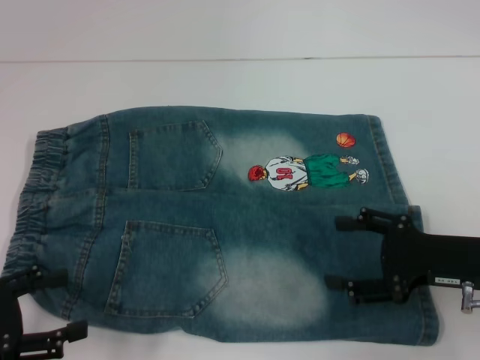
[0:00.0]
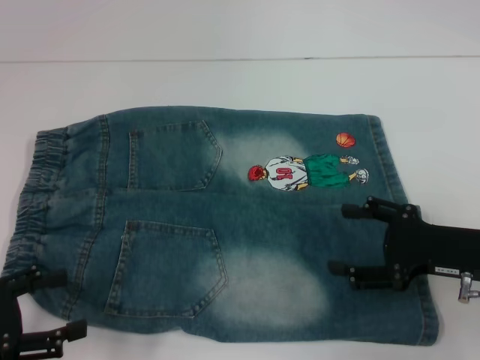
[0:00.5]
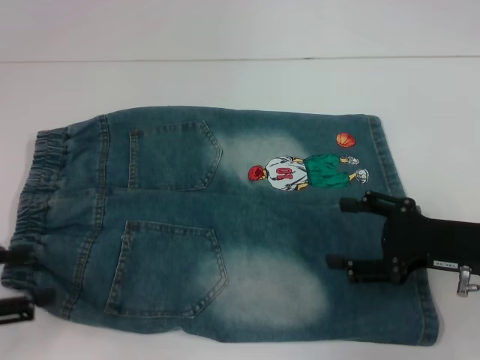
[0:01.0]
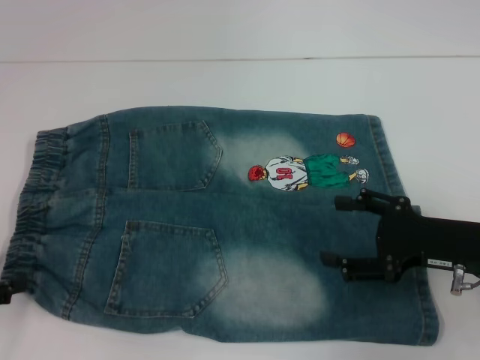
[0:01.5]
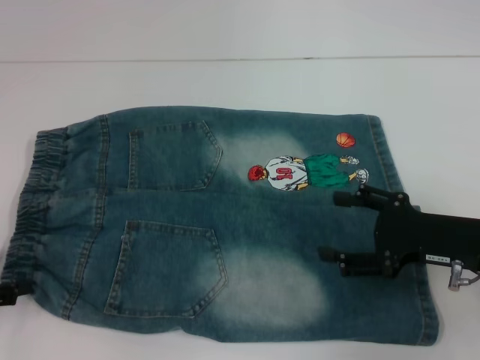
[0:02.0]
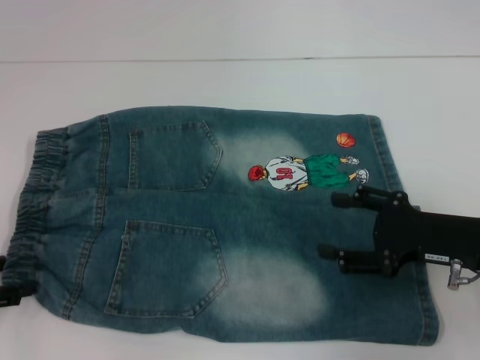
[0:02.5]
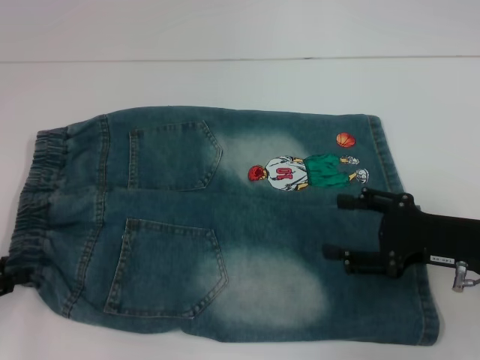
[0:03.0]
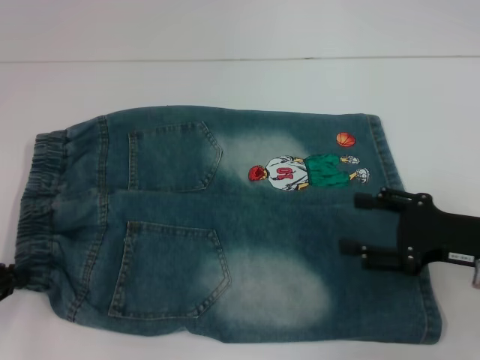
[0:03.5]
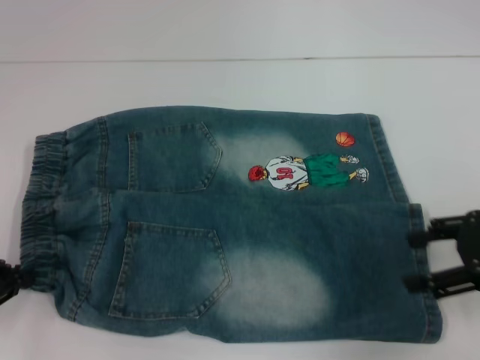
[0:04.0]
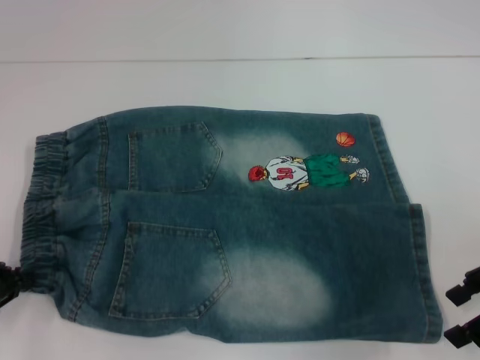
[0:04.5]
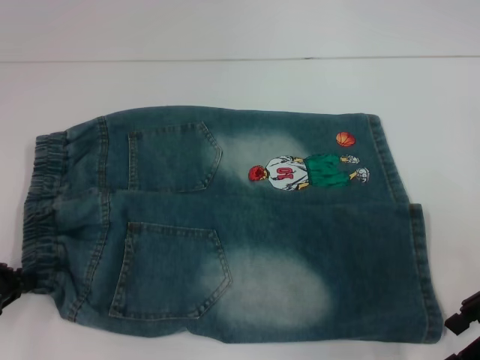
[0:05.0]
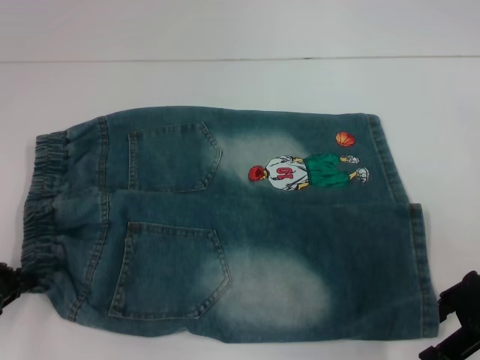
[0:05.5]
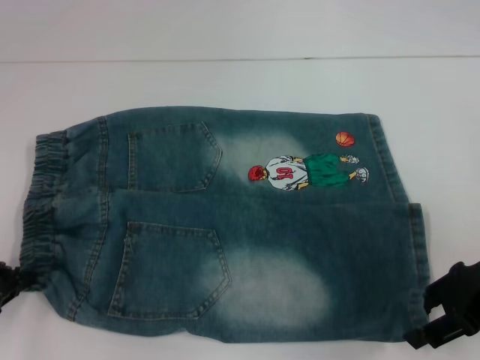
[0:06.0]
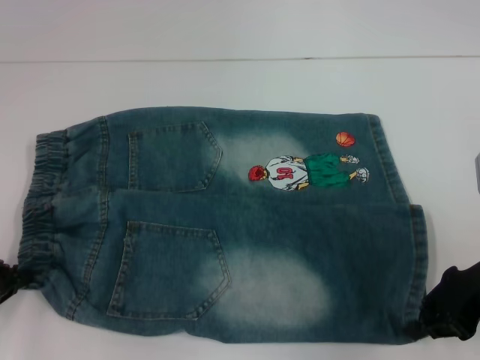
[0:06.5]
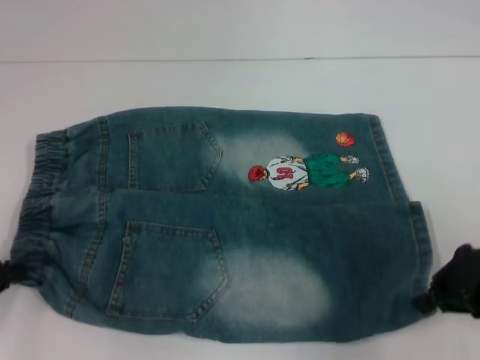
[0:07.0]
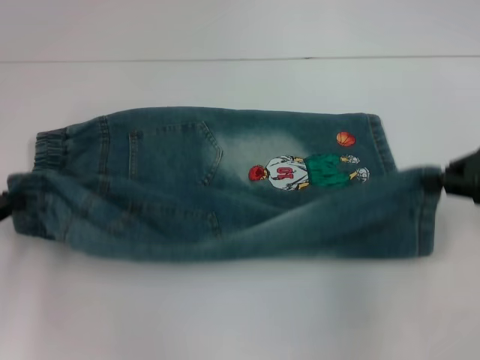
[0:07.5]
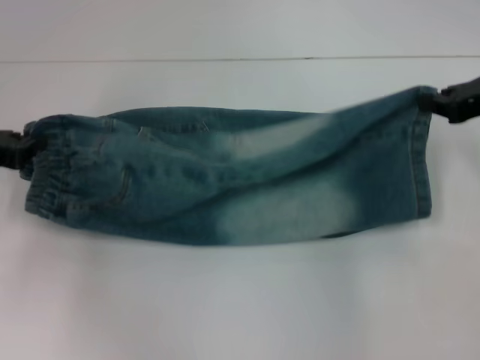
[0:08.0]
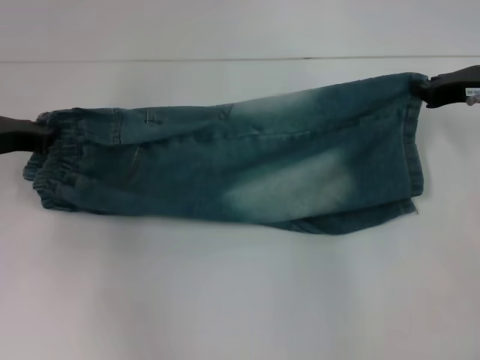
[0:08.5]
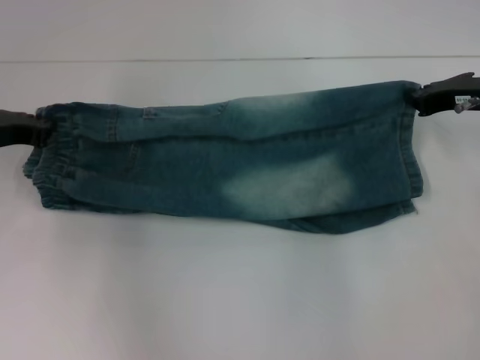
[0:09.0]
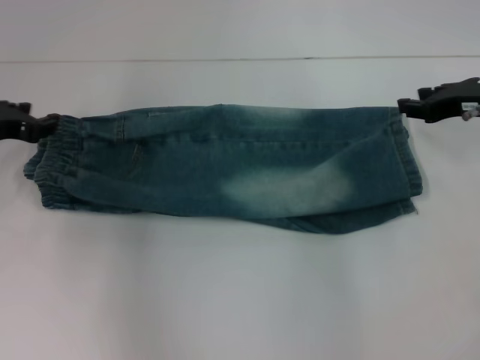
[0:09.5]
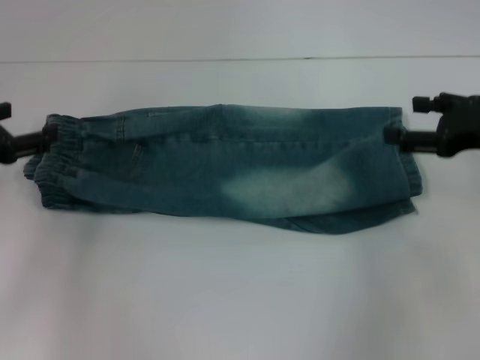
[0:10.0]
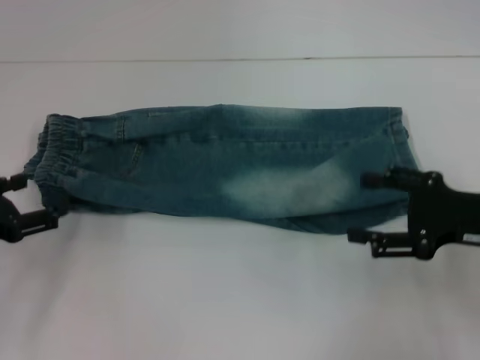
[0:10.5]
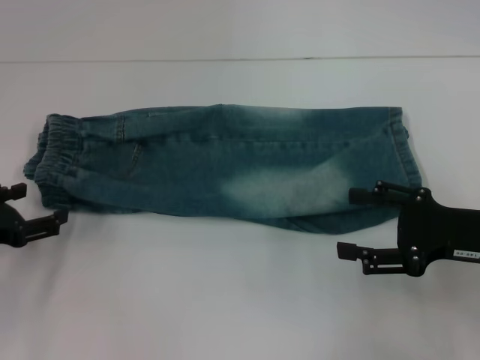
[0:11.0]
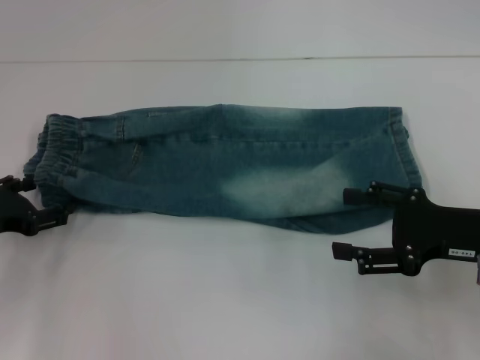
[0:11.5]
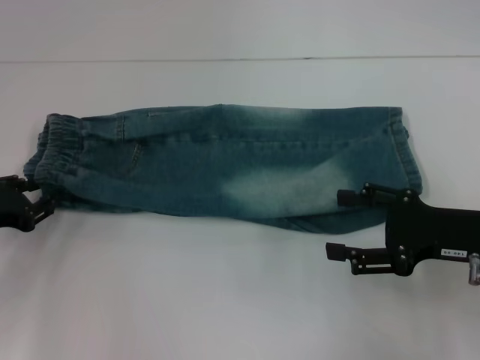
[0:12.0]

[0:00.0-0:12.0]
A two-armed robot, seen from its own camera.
Step, 0:00.0 to 0:03.0: Hold the lower left waistband with your left hand.
Step, 0:03.5 to 0:06.5: Grab the lower right pant leg with your right hand.
Step, 0:07.0 to 0:09.0: Fold upward with your right hand.
0:00.0 to 0:02.0: The left gripper shifts by about 5 cm.
0:02.0 to 0:04.0: The right gripper shifts about 10 cm upward and to the right. Meanwhile the left gripper closes up.
0:06.0 to 0:08.0: Both grippers move forward and upward, roughly 10 cm. The right gripper closes its fingers.
0:08.0 to 0:10.0: The left gripper opens up. Meanwhile the right gripper opens its fingers.
0:10.0 to 0:12.0: The left gripper heads downward, covering roughly 5 cm. The right gripper goes some 10 cm backward and downward.

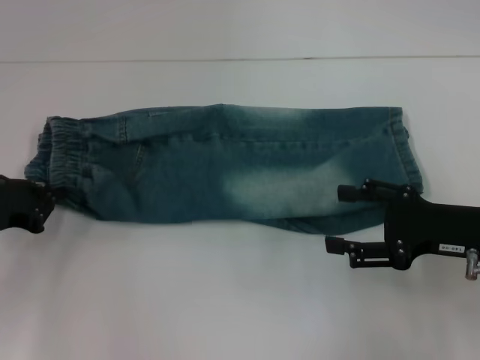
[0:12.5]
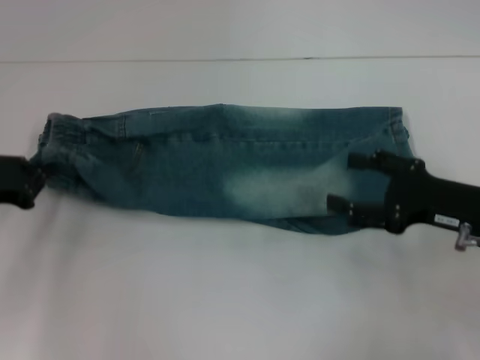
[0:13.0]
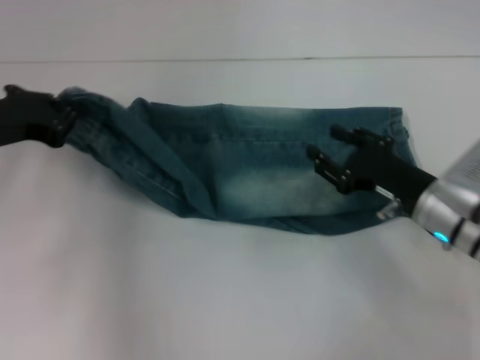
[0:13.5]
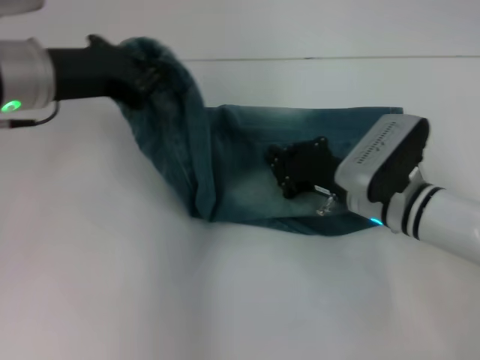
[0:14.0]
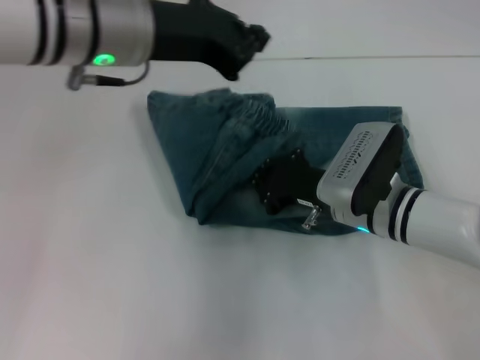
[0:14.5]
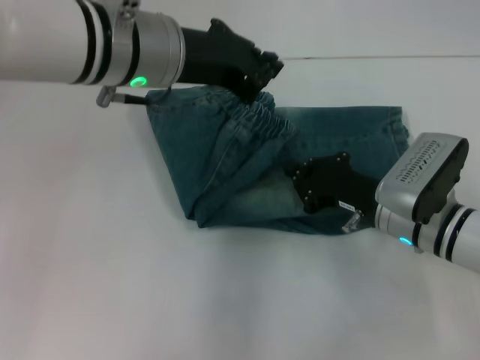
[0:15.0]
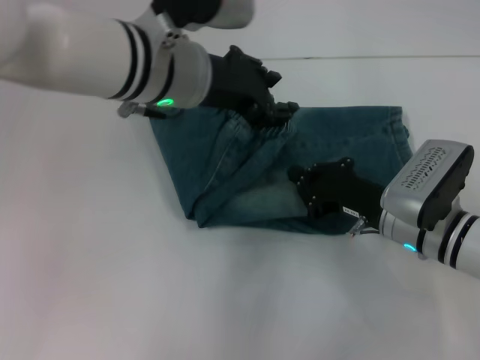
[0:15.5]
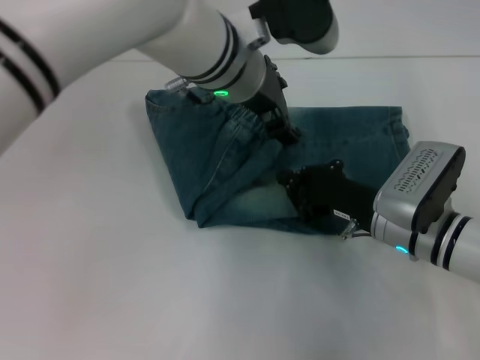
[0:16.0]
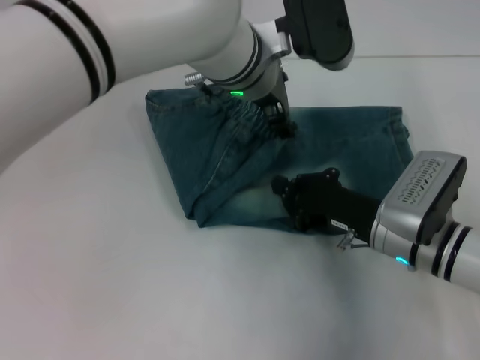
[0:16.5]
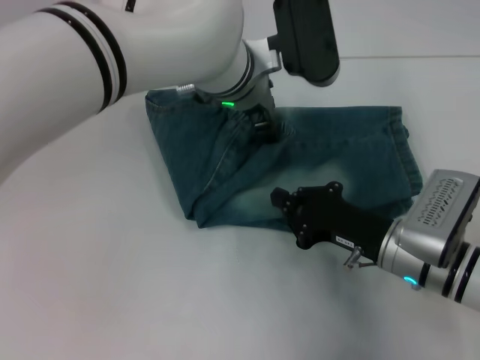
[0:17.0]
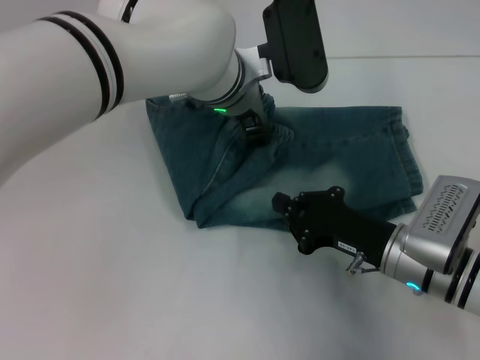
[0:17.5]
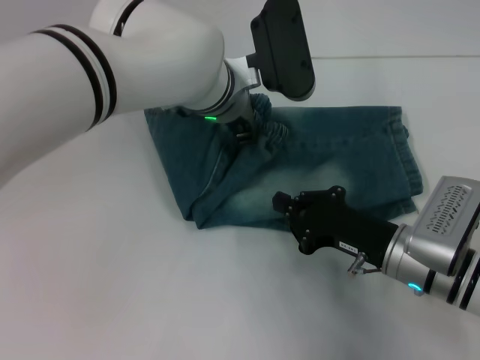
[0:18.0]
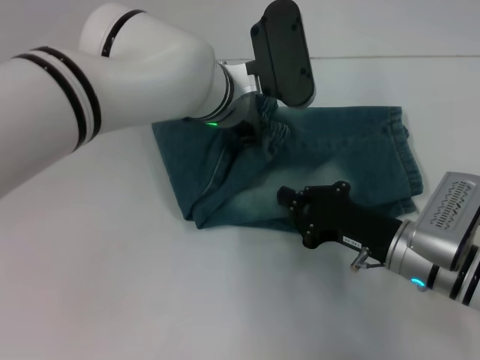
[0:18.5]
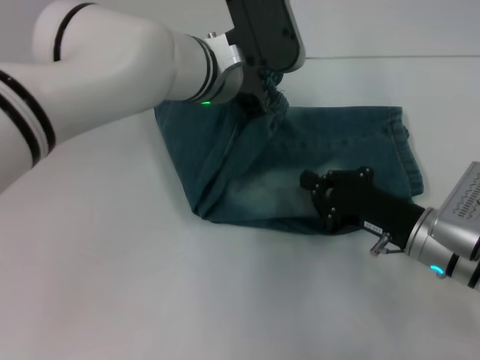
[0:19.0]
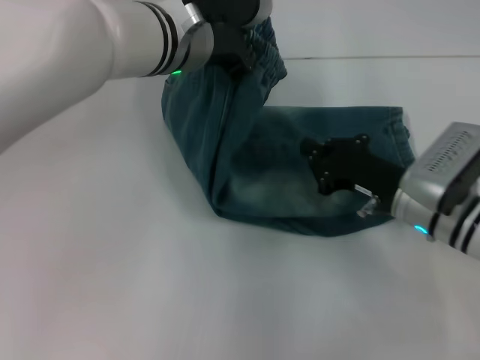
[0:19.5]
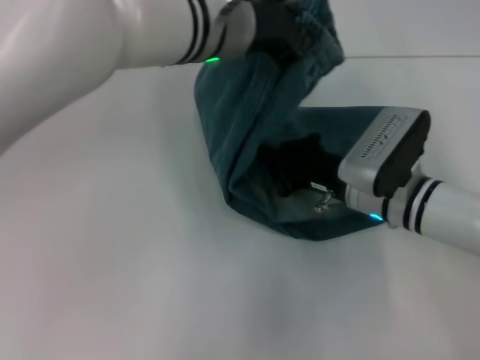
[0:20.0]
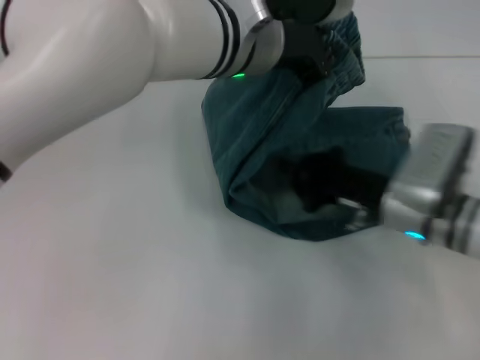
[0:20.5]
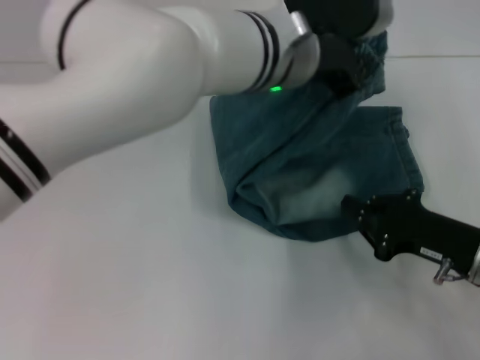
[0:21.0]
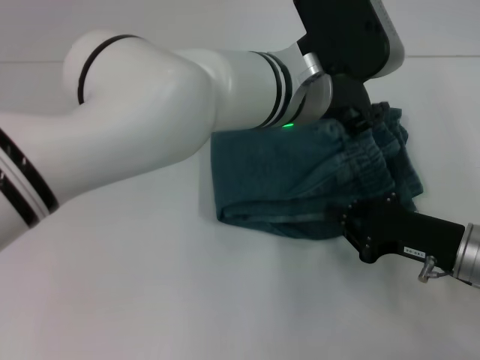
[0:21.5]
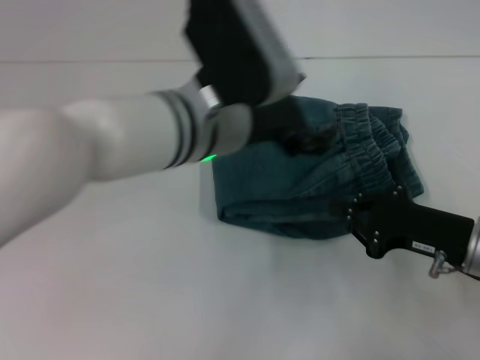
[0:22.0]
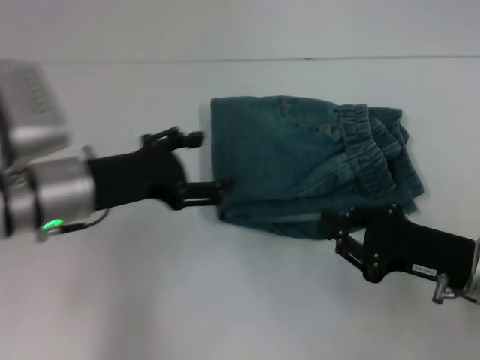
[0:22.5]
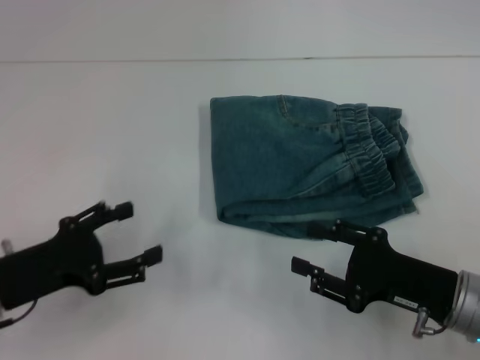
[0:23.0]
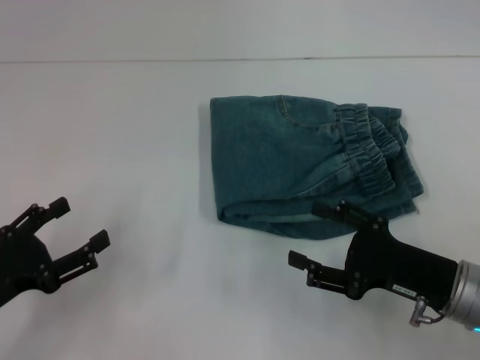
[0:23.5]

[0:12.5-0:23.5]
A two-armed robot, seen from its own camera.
Step, 0:13.0 to 0:20.0: Press the middle of the pants with your right hand.
Step, 0:20.5 to 0:21.0: Fold to the right with your left hand.
0:12.5 to 0:14.5: The right gripper moves to the left and forward, approximately 15 cm, and closes its fingers, while the left gripper moves to the right and upward, some 25 cm.
0:14.5 to 0:16.0: The left gripper is displaced to the right and downward by approximately 10 cm, and opens.
0:16.0 to 0:18.0: The left gripper travels downward by about 5 cm.
0:18.0 to 0:20.0: The left gripper is displaced upward by about 10 cm, and closes, while the right gripper shifts roughly 5 cm forward.
0:20.0 to 0:21.5: The right gripper shifts approximately 10 cm to the right and backward. The left gripper travels to the right by roughly 5 cm.
0:21.5 to 0:23.5: The left gripper is displaced to the left, backward and downward by roughly 40 cm, and opens its fingers; the right gripper opens.
